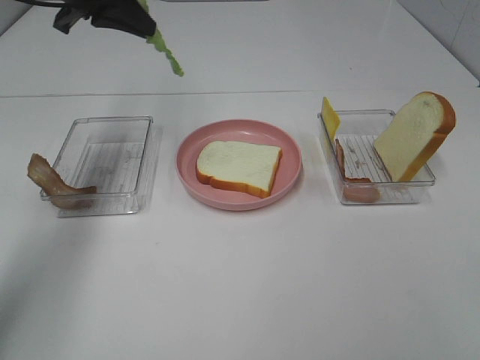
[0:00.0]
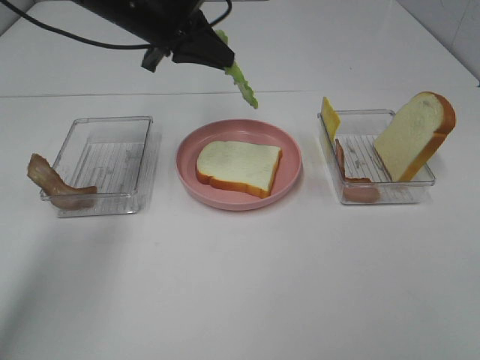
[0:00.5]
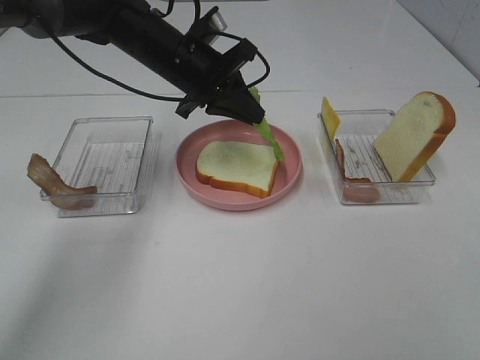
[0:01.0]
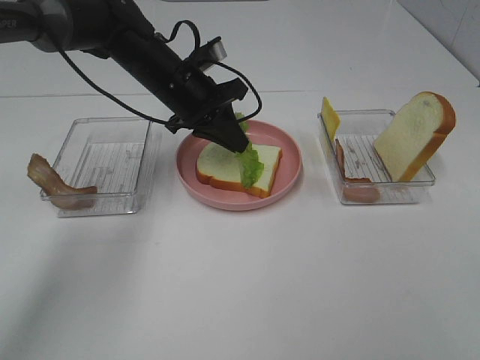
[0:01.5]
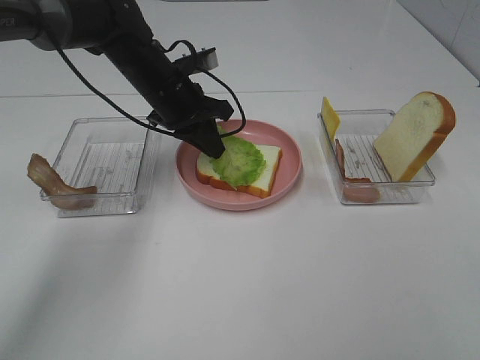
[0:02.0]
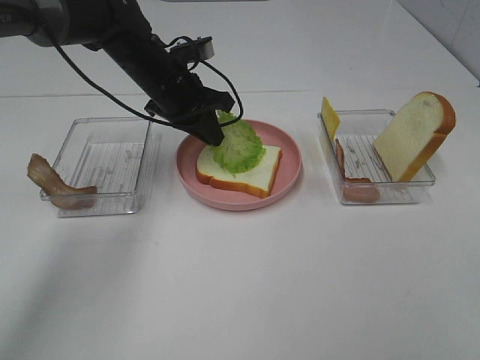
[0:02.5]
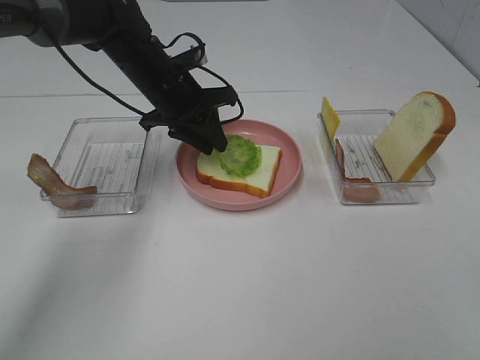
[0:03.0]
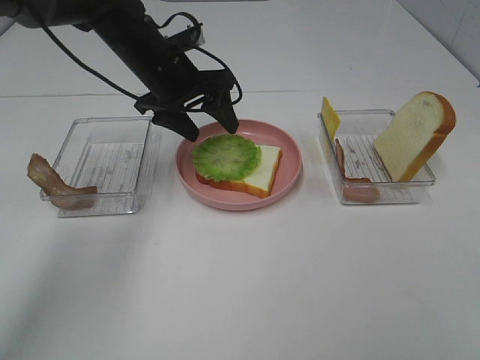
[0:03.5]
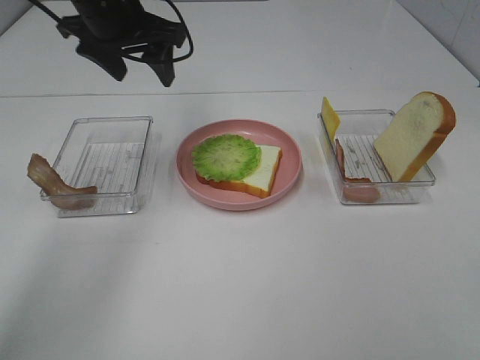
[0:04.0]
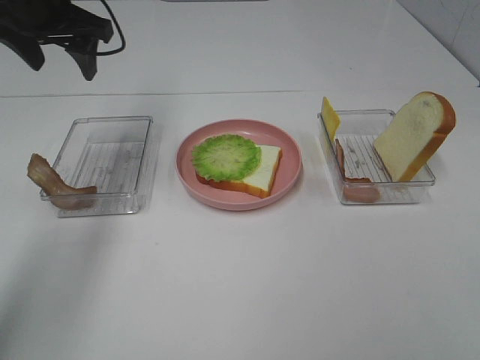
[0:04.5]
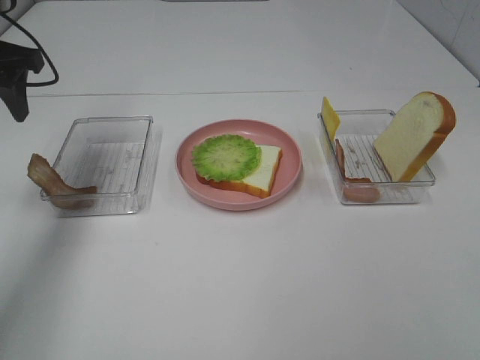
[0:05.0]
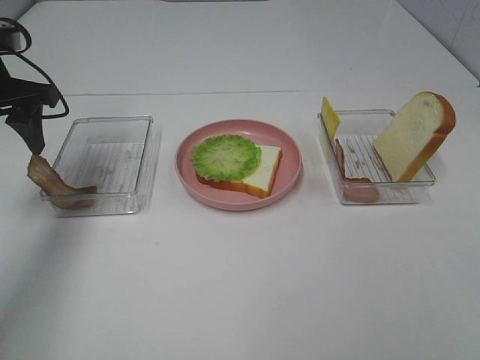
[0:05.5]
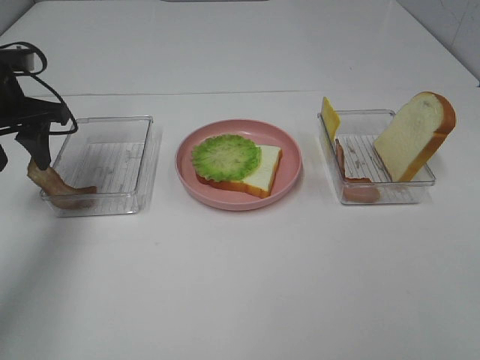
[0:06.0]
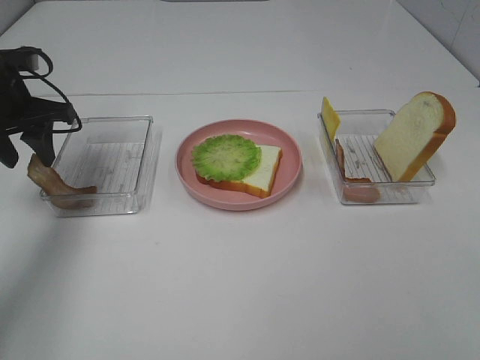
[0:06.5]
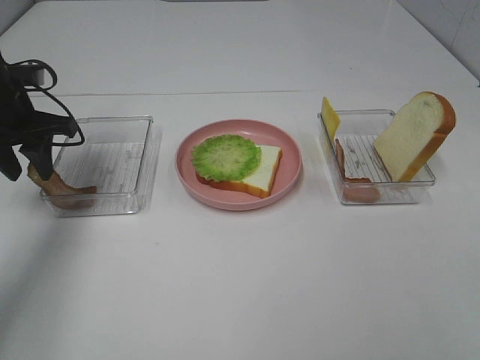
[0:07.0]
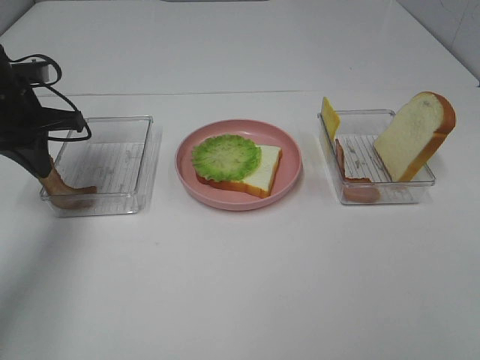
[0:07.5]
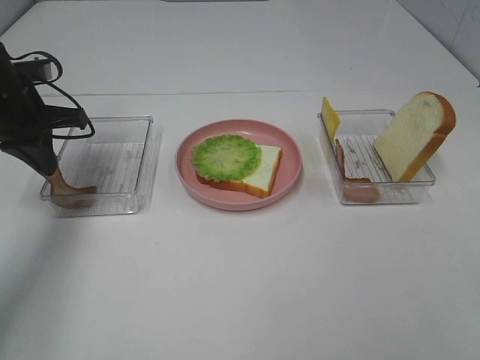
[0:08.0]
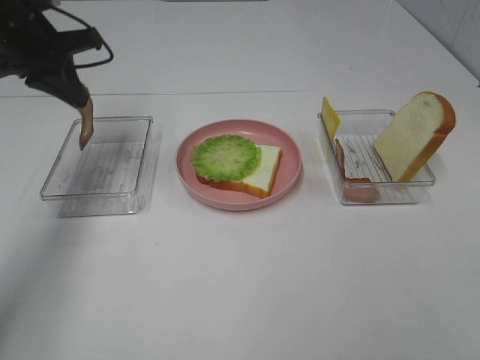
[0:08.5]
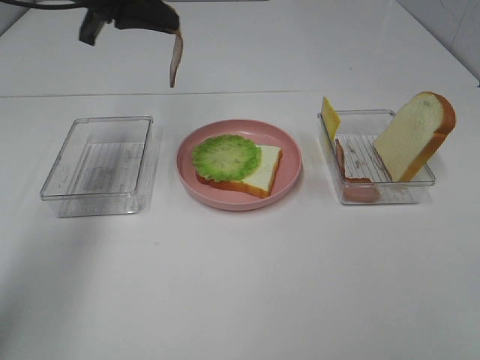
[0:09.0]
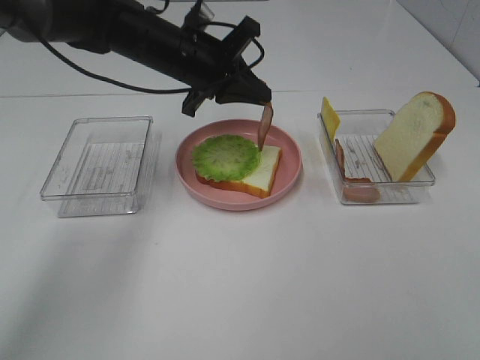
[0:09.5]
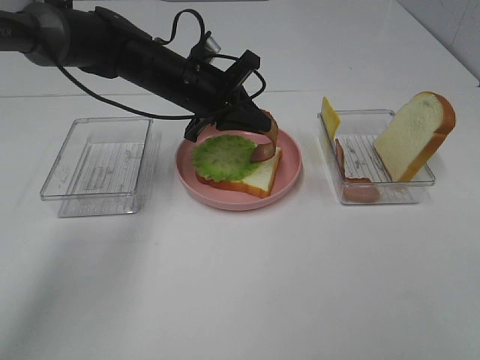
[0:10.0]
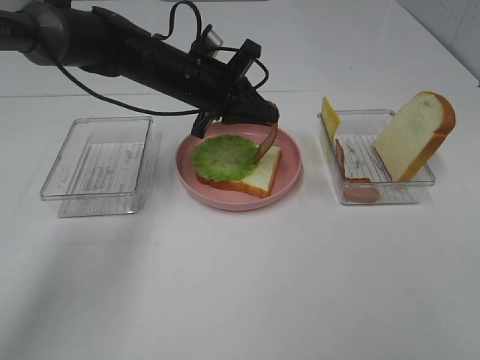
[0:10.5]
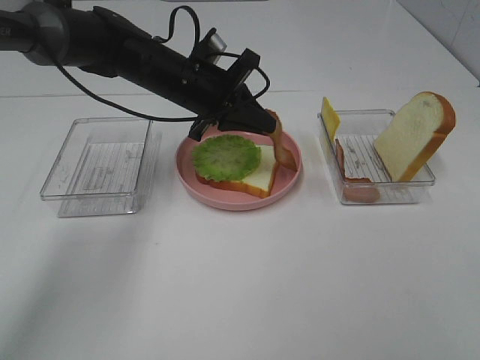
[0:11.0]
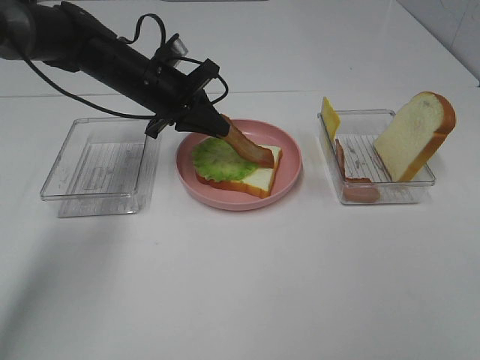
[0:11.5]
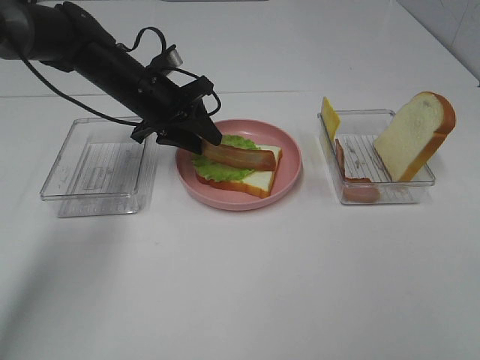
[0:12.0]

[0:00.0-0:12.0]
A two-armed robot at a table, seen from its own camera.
Task of the whole recording: Make sandwiches.
Step, 0.0 to 3.5 s: Left hand:place the lettuce slice on the bread slice.
Step, 4.0 to 7.5 s: Left hand:grab the bacon.
0.0 to 2.0 s: The left gripper heads downward and to the right, covering about 15 cm.
2.0 to 4.0 s: The left gripper travels upward by about 10 cm, and opens up.
4.0 to 6.0 s: The left gripper goes about 15 cm to the left and downward.
6.0 to 8.0 s: The left gripper closes up.
8.0 to 10.0 s: The left gripper shifts about 20 cm to the right.
10.0 to 12.0 s: The left gripper heads to the left, covering roughly 5 cm, and opens up.

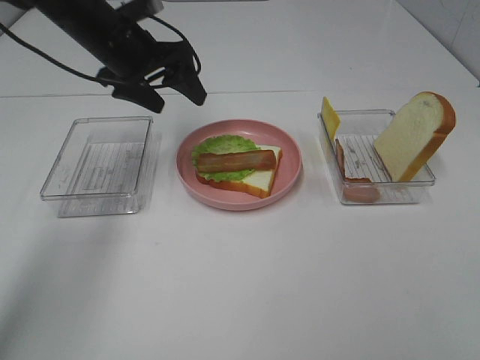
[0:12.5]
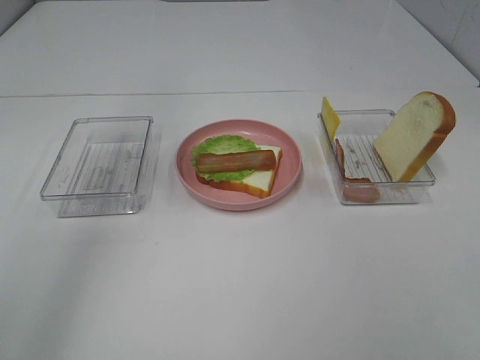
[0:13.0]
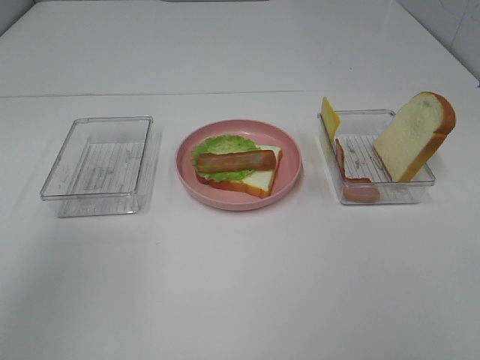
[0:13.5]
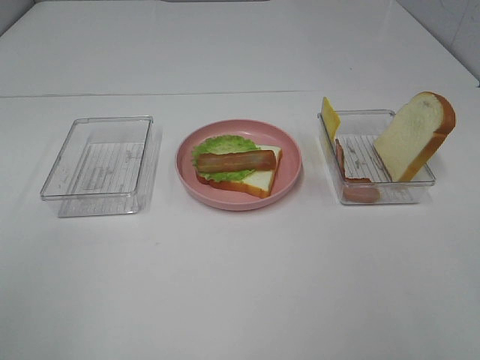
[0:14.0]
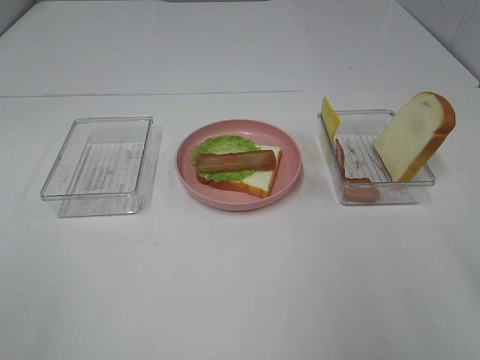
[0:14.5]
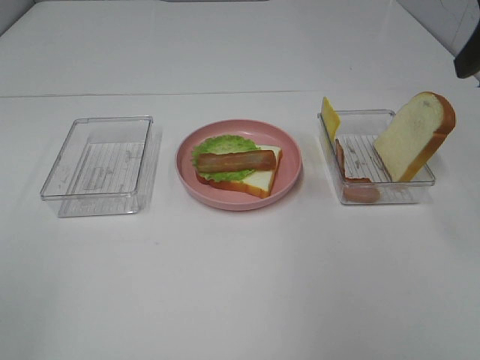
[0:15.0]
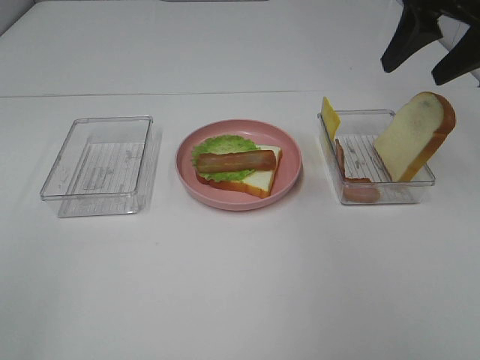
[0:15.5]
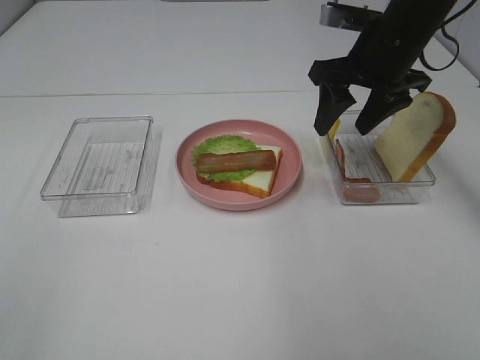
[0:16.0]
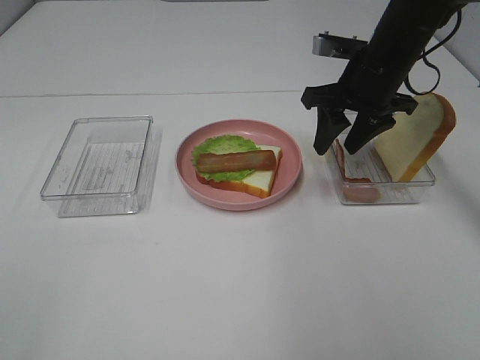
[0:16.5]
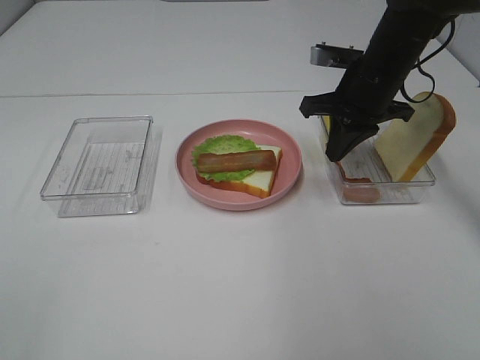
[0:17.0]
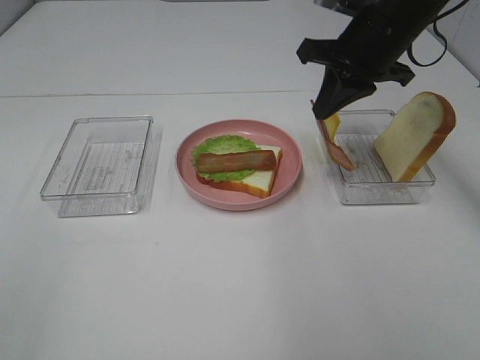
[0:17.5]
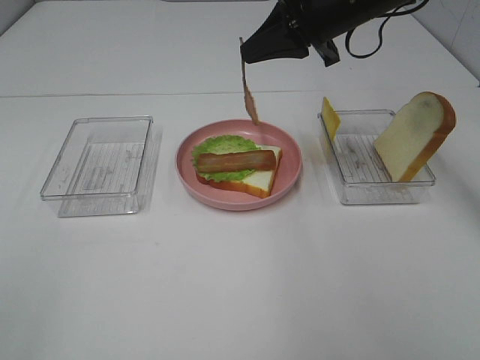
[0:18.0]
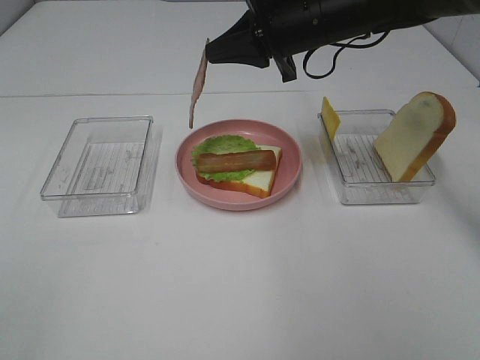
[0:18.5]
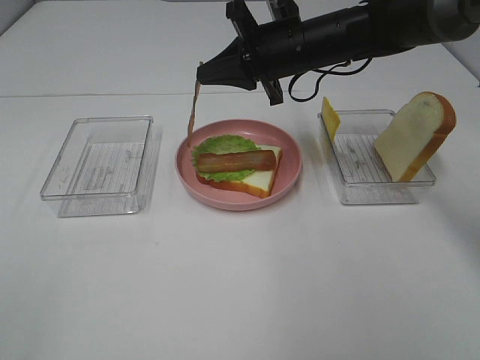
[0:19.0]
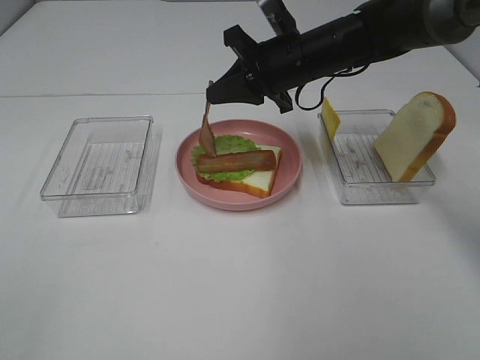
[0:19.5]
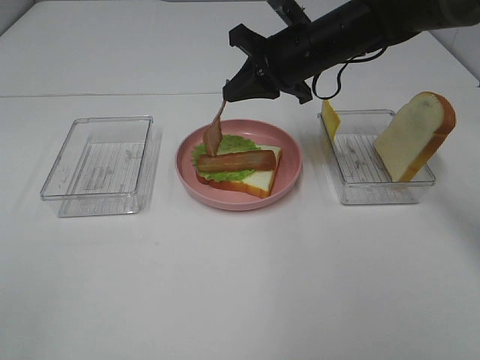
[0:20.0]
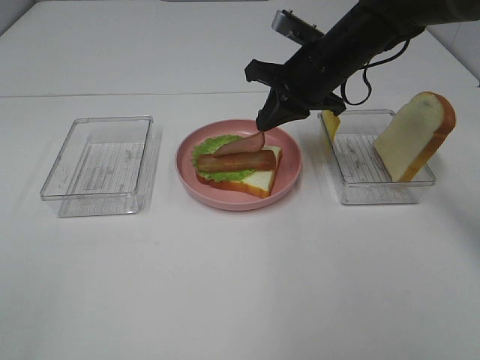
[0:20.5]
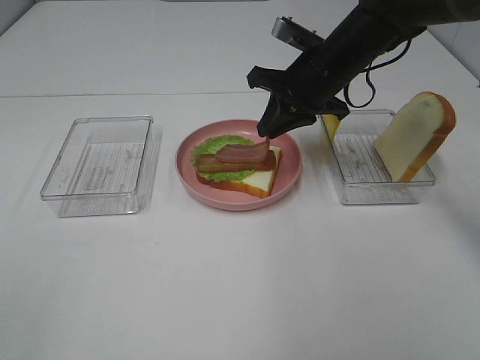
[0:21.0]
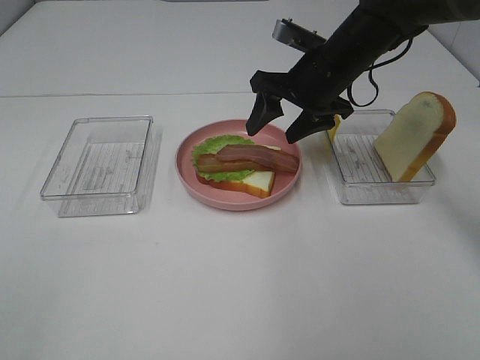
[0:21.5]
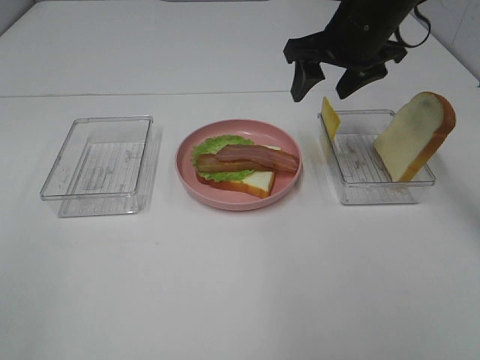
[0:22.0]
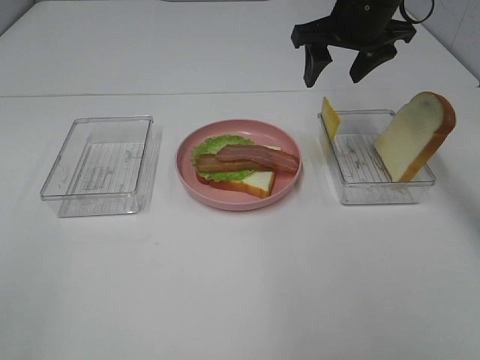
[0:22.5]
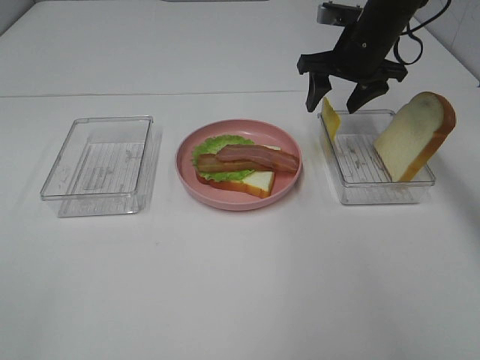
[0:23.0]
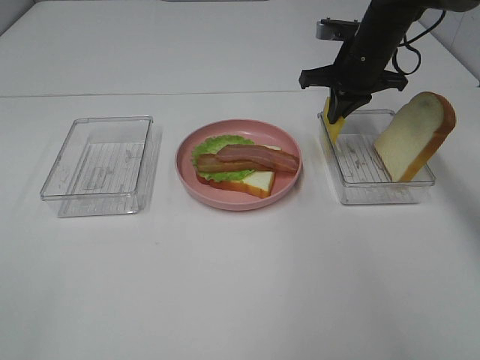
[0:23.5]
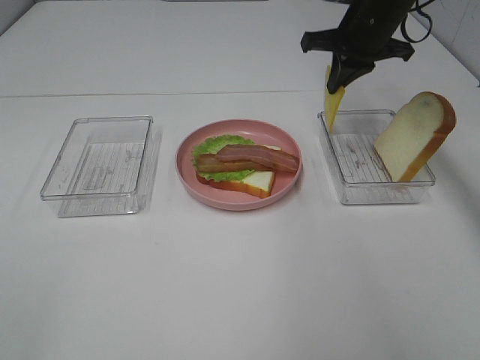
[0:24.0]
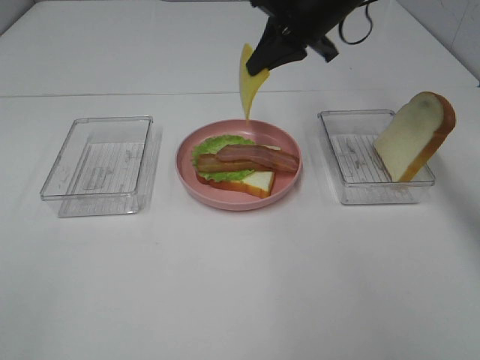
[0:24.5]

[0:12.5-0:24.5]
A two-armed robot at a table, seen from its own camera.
Task of the whole recording: Make sandwiches.
Step, 12.5 to 17.0 s: Right hand:grab the bacon.
Step, 17.5 to 21.0 s: Right hand:place bacon on bacon.
Step, 21.5 to 23.5 s: Right hand:grab the cheese slice.
12.5 to 14.5 s: The right gripper is displaced forward by roughly 15 cm. The left gripper moves backward, some 40 cm.
14.5 to 16.5 s: The right gripper travels forward, downward and to the left by some 30 cm.
16.5 to 18.5 s: The right gripper is displaced to the left by approximately 5 cm, and closes up.
18.5 to 20.5 s: The right gripper shifts by some 5 cm.
20.5 to 22.5 s: The right gripper travels upward by roughly 5 cm, and opens.
22.5 to 24.5 s: The right gripper travels to the left by roughly 5 cm, moves approximately 10 cm downward and comes back, and closes up.

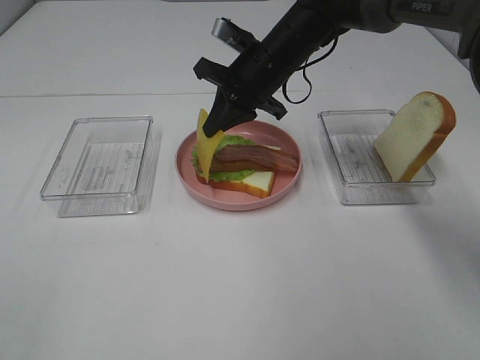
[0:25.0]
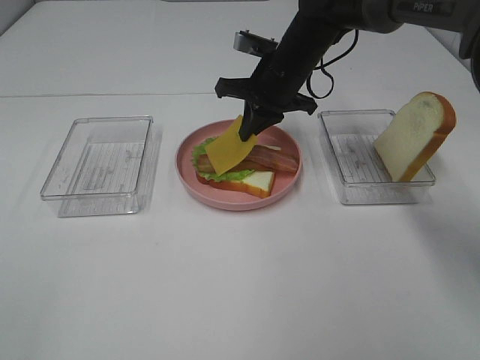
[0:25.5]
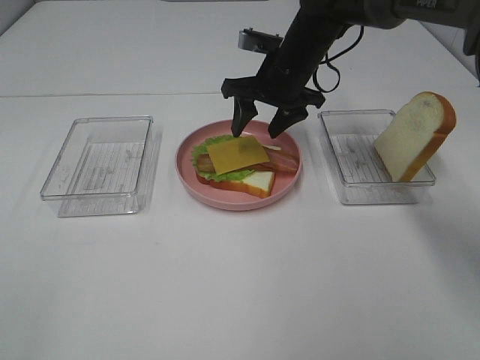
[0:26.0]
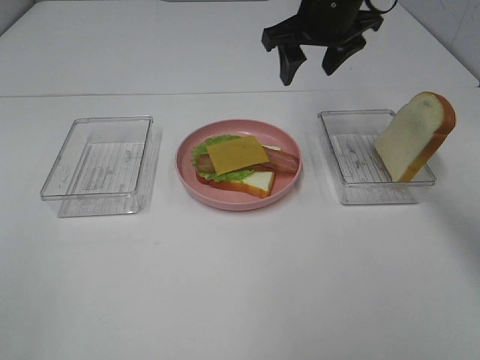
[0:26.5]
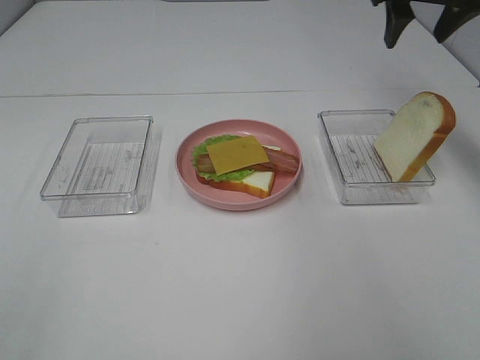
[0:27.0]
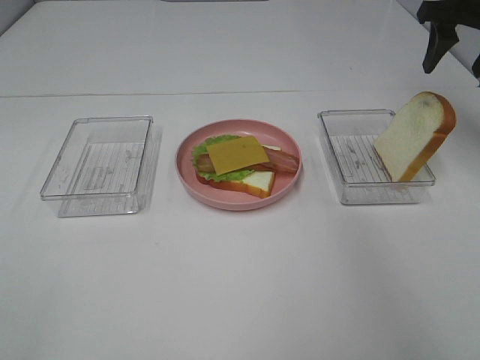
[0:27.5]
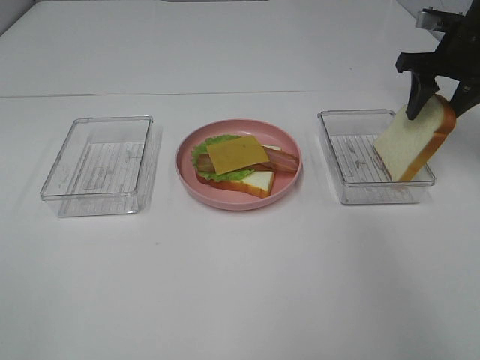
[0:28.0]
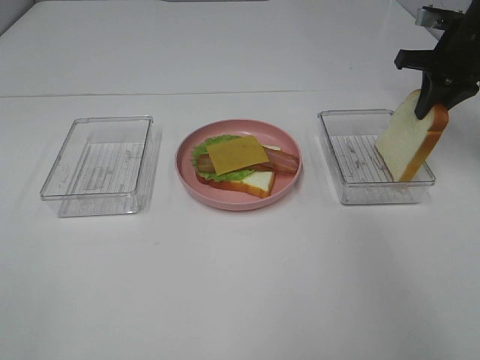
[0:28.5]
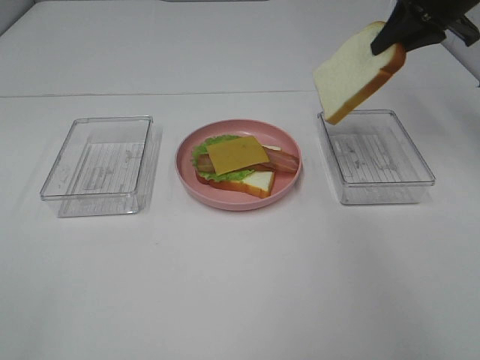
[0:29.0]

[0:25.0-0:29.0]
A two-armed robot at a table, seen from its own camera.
Task of the whole recording: Make sandwiches.
Step, 26.5 to 28.0 s: Right hand:grab the bread slice.
25.0 to 27.0 s: The right gripper moves to the right and upward, roughly 25 cm, and opens up.
27.0 to 29.0 s: The right gripper goes downward and returns, approximately 10 cm each way, and closes its fingers.
